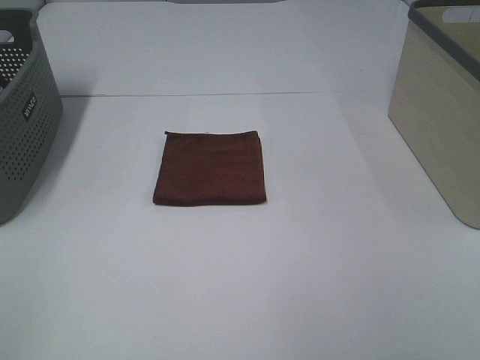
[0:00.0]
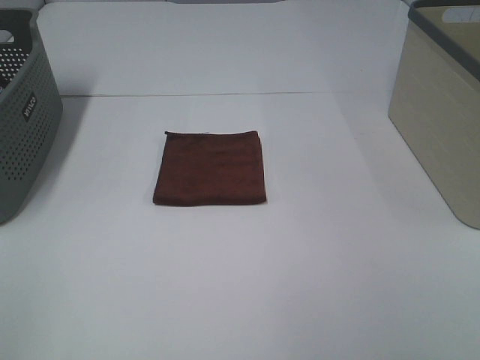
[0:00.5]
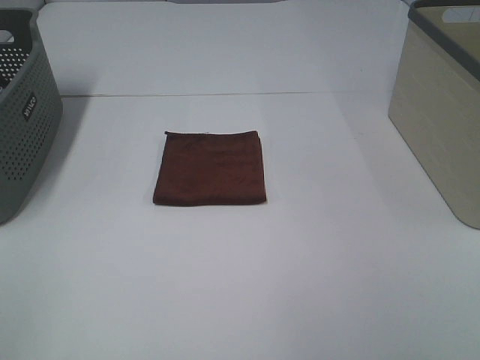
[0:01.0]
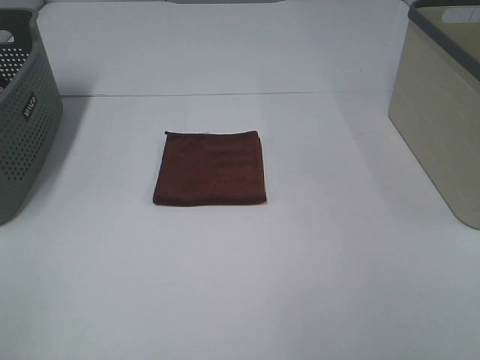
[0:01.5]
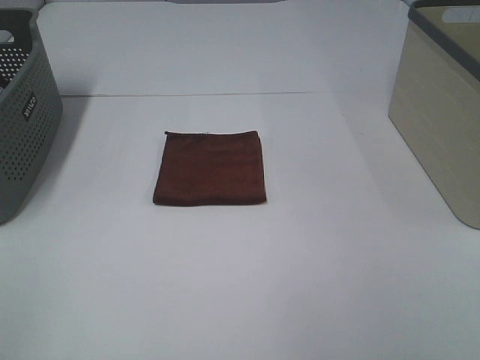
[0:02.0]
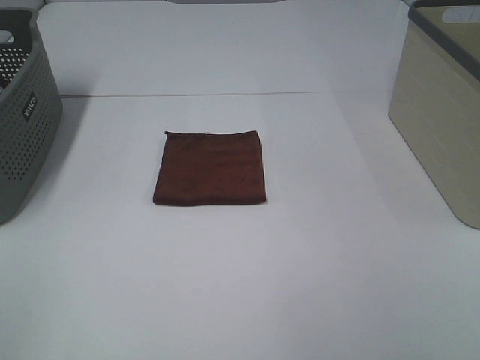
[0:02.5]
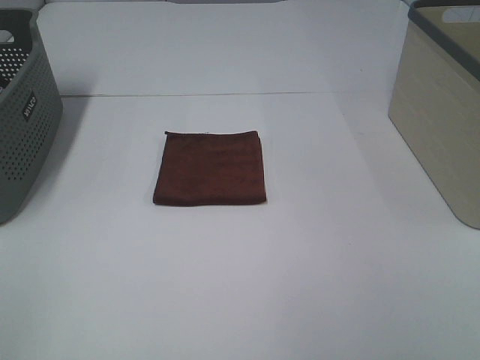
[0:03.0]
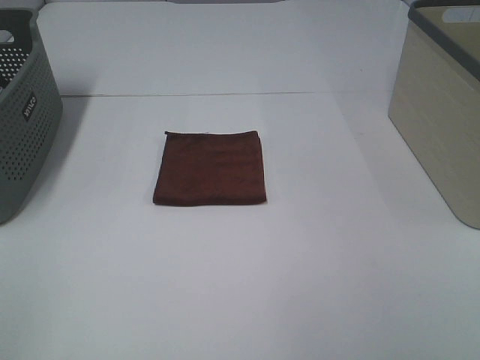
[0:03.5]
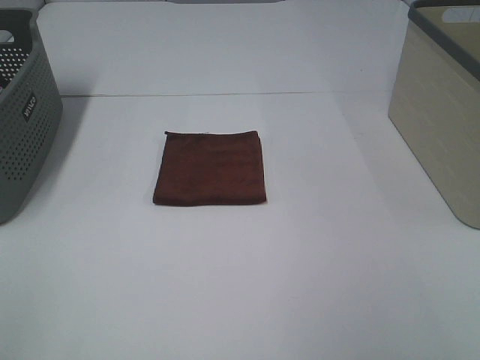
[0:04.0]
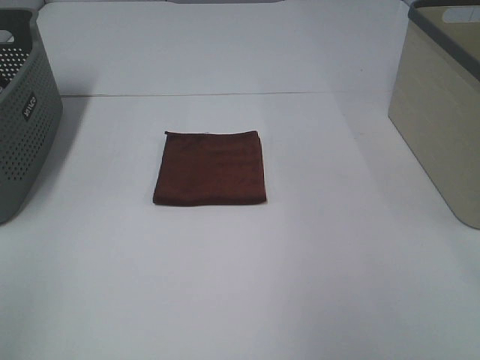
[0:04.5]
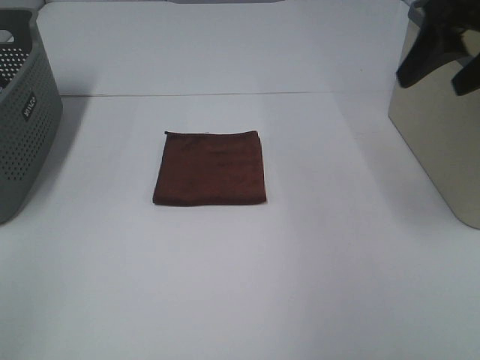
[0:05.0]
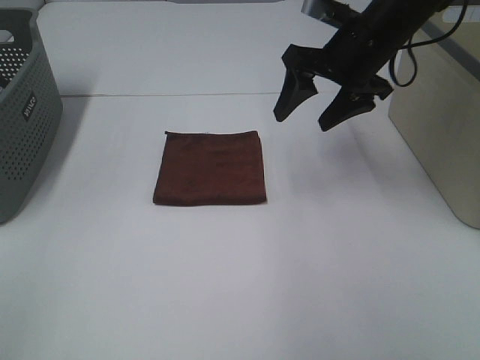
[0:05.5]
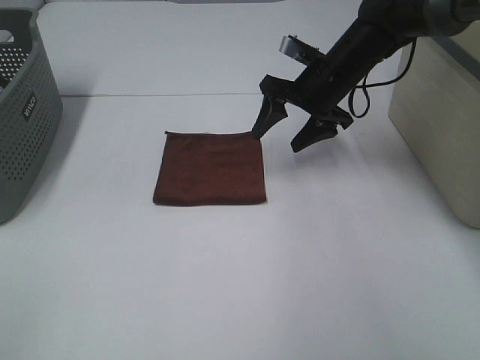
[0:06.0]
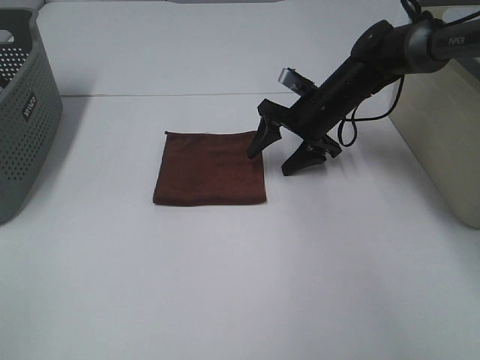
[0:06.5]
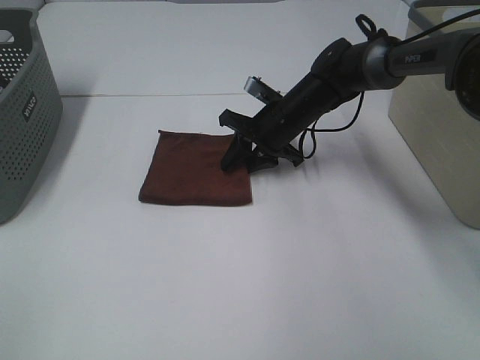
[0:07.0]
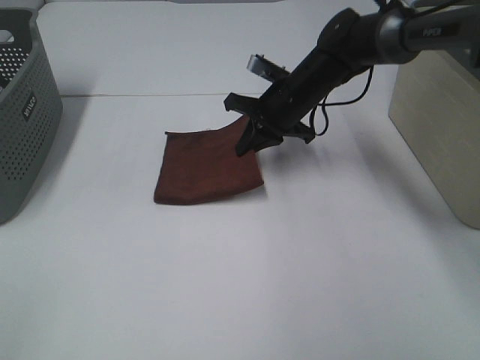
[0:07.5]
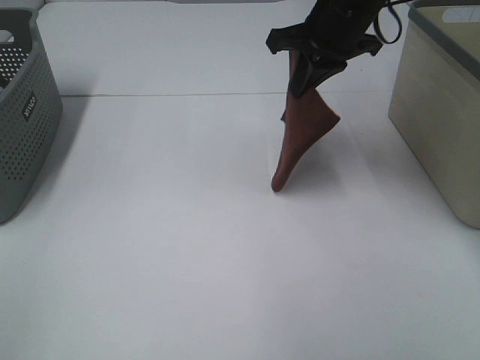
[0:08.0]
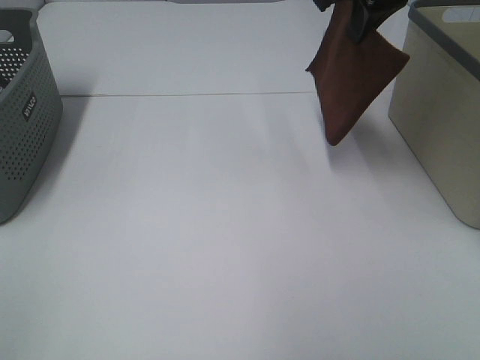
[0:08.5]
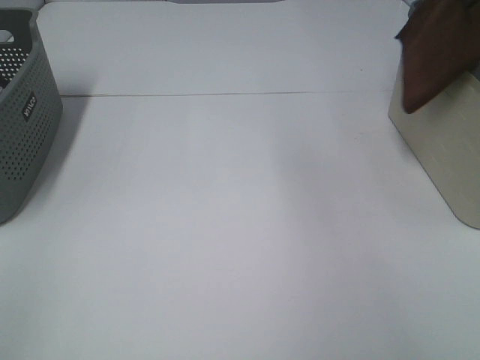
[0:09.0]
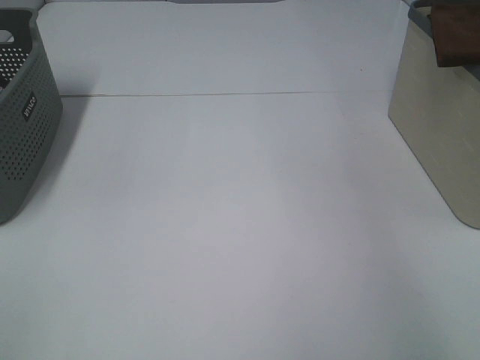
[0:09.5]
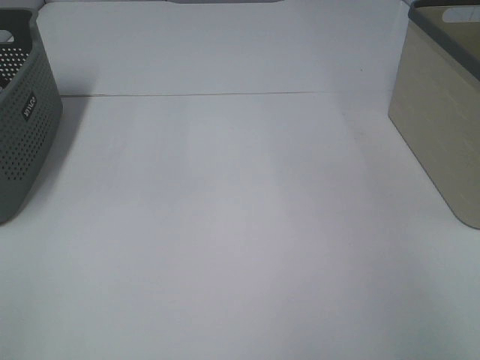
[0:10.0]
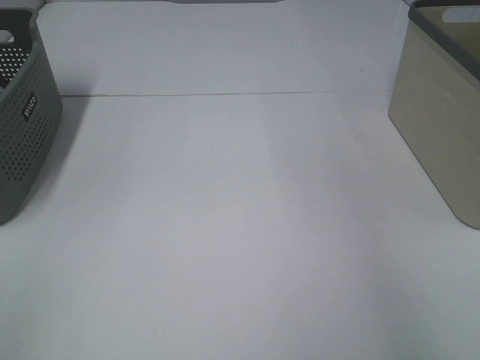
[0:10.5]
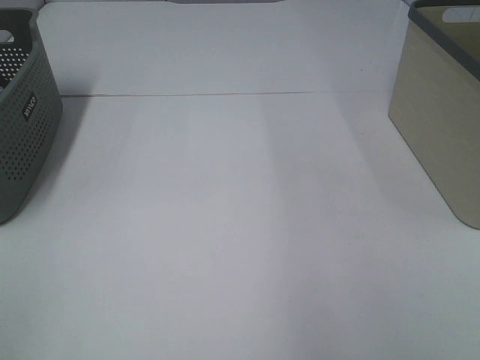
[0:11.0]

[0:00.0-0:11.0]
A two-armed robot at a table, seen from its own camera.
Step, 0:00.0 to 0:07.0: Right hand: grab the folded brown towel.
Step, 0:07.5 to 0:10.0: Right hand: place the brown towel in right basket.
0:00.0 to 0:03.5: The two grippers keep their place.
0:03.5 to 0:05.5: The right gripper heads forward, covering roughly 40 cm.
0:05.5 to 0:07.5: The right gripper moves downward and to the left, approximately 10 cm, and closes up.
0:07.5 to 0:09.0: The right gripper is displaced upward and to the right by approximately 30 cm.
0:09.0 to 0:11.0: The right gripper moves upward and backward, about 15 cm, and opens its fingers.

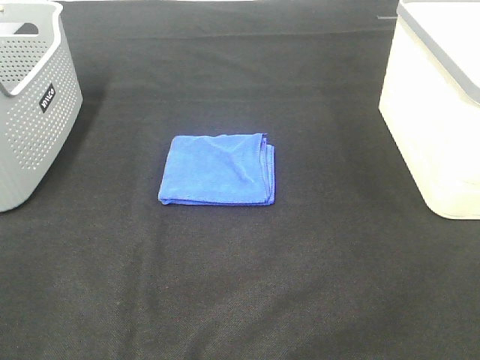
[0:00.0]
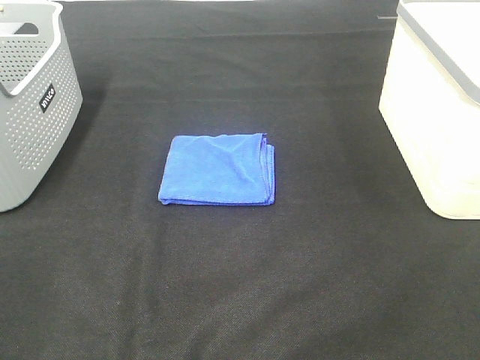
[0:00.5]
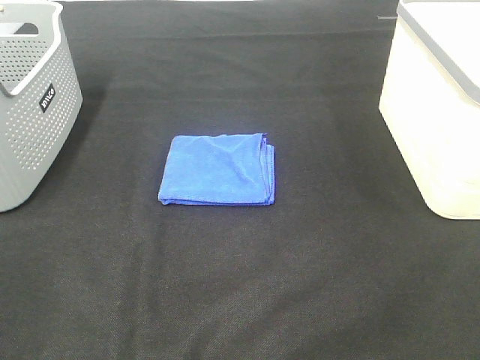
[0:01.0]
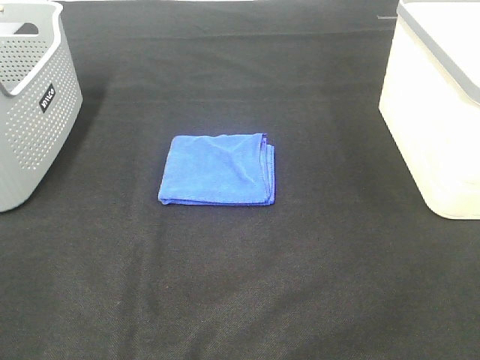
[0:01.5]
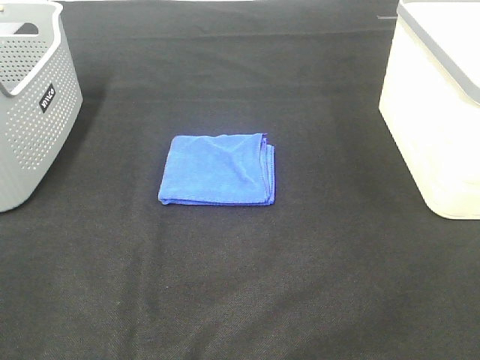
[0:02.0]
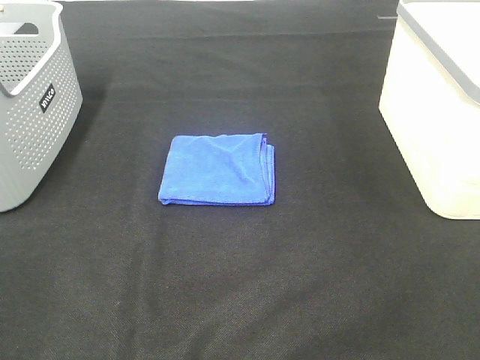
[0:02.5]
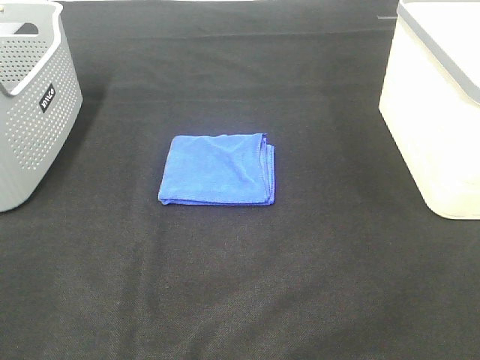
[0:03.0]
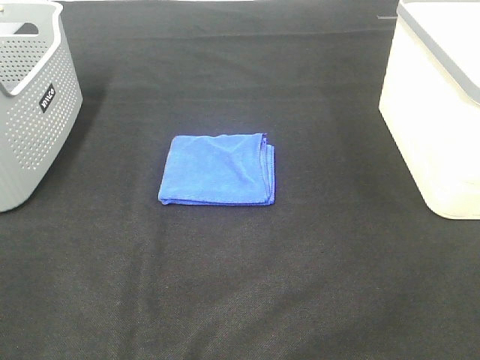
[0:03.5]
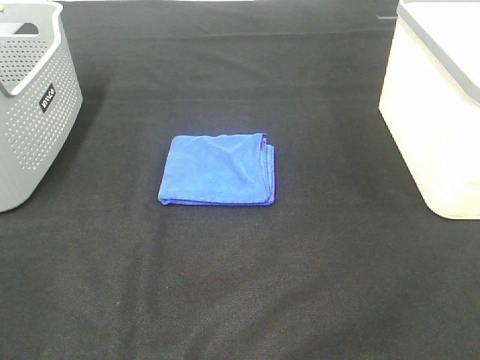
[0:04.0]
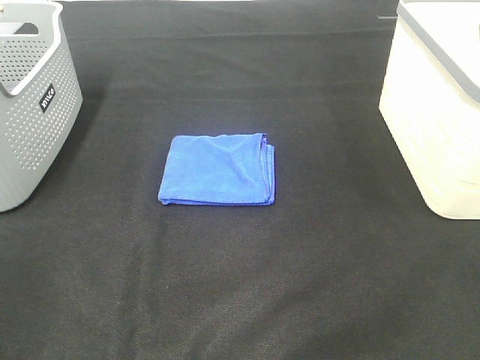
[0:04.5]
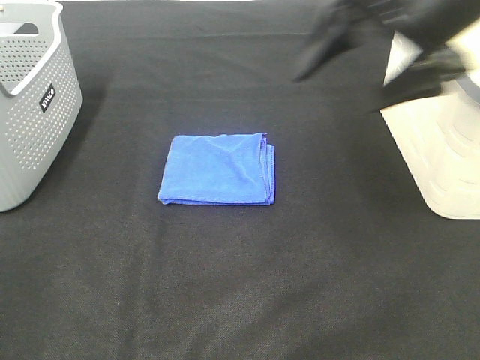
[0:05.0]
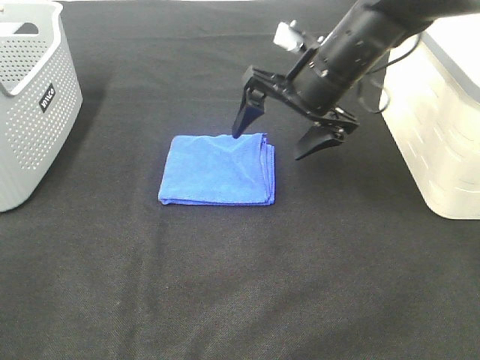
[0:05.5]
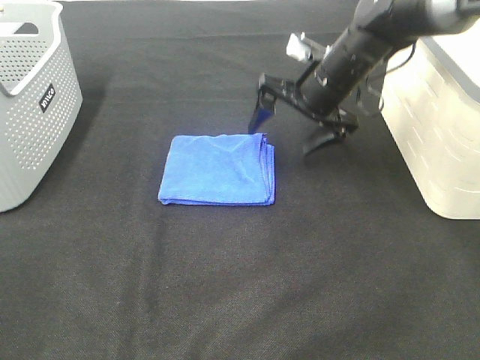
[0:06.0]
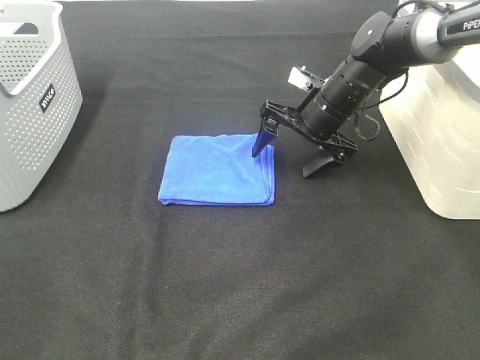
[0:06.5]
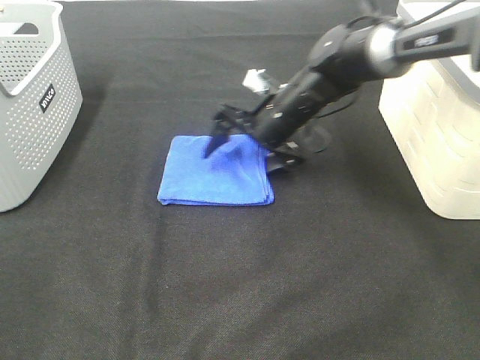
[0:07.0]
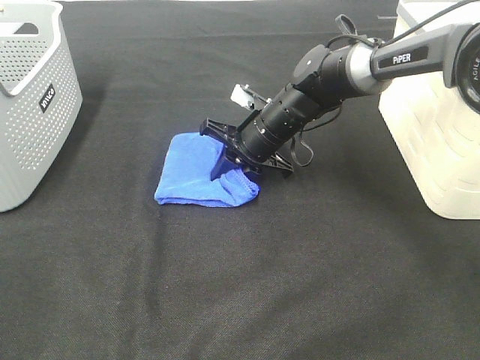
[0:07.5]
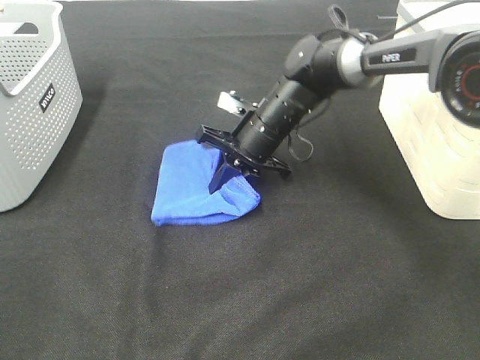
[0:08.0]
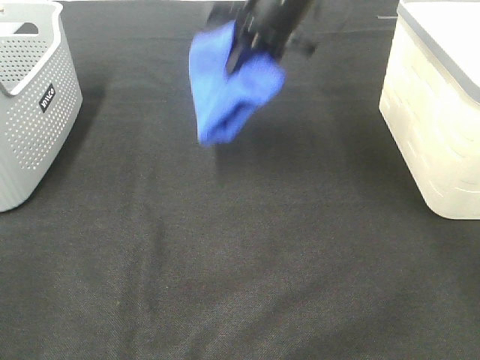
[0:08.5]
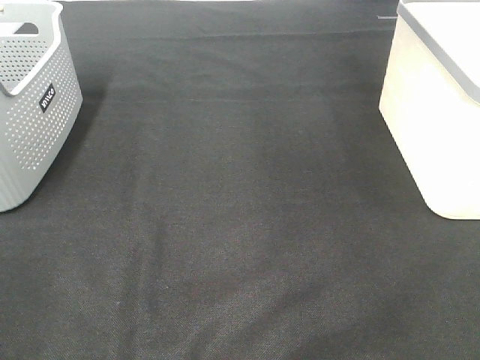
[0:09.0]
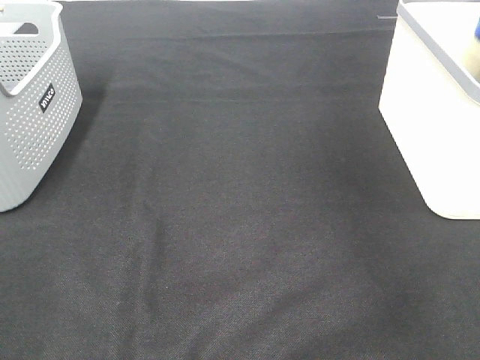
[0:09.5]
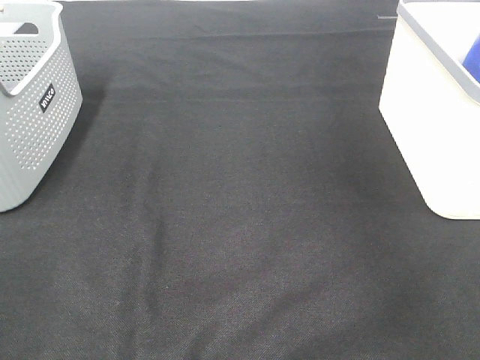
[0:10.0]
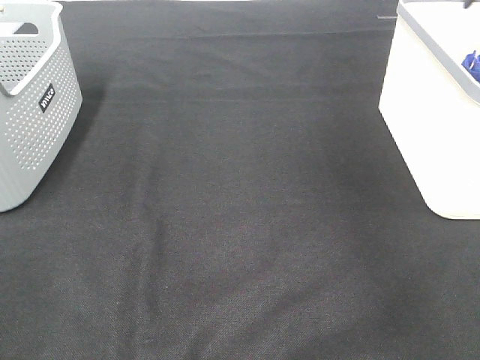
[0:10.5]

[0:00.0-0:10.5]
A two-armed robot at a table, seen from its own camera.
Step, 0:00.0 to 0:07.5: Right hand: grab the folded blue towel.
Step, 0:08.0 to 0:10.0: Right hand: place the blue towel in right basket.
0:00.0 to 0:02.0: The two grippers keep their place.
0:04.0 to 0:06.5: The right gripper goes about 50 cm forward, downward and to the left.
0:06.5 to 0:08.5: The right gripper travels upward by about 20 cm, and closes its fingers.
0:08.5 to 0:10.5: The right gripper goes roughly 30 cm to the right, and opens its fingers.

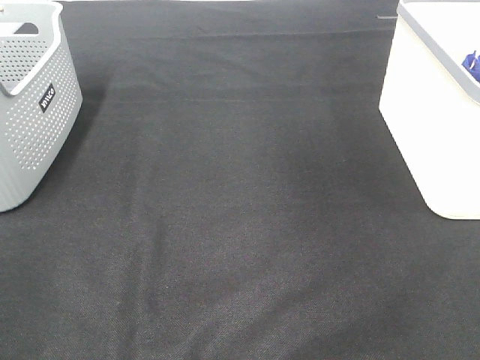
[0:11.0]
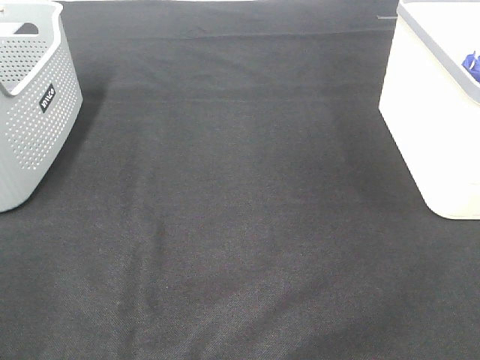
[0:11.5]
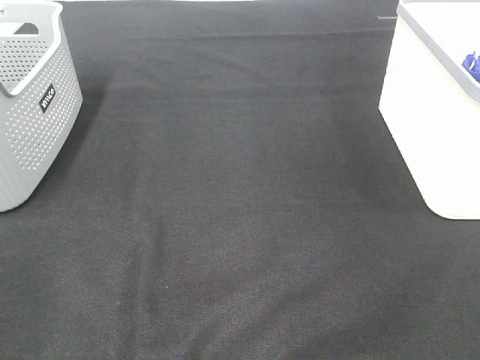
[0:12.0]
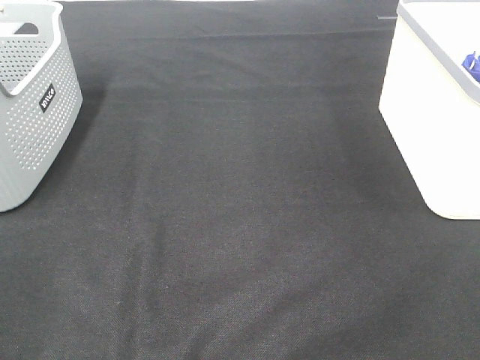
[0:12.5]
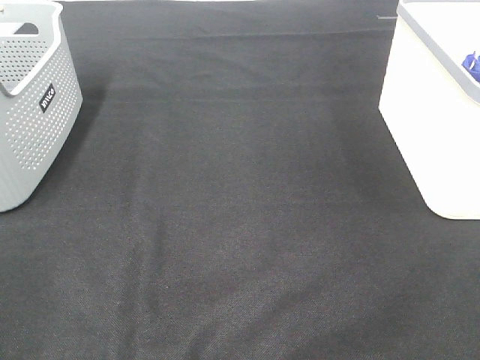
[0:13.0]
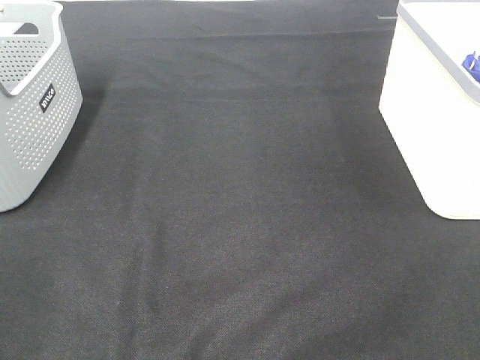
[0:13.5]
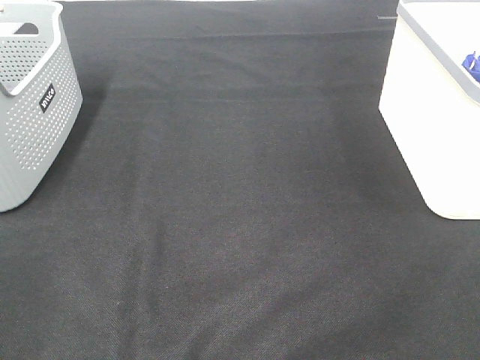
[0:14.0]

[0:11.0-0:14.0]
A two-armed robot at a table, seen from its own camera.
0:12.5 to 0:14.0: Both grippers stay put.

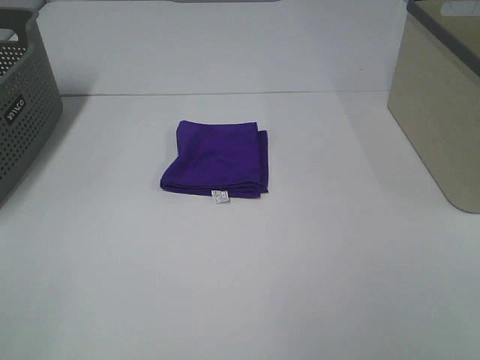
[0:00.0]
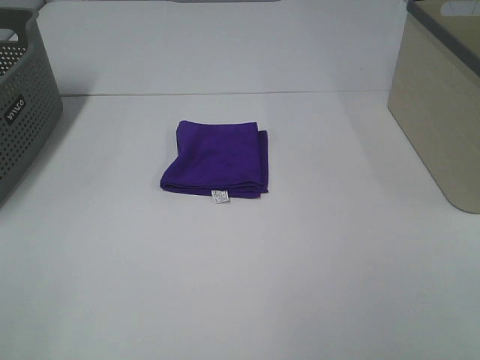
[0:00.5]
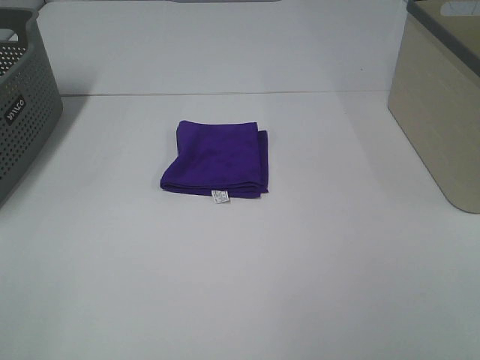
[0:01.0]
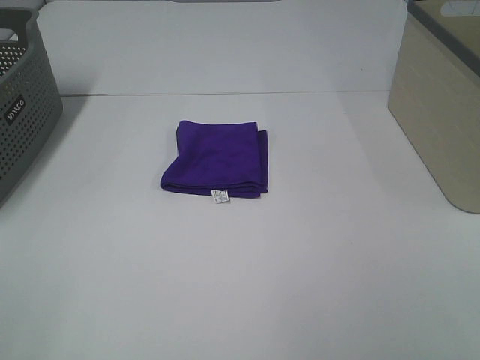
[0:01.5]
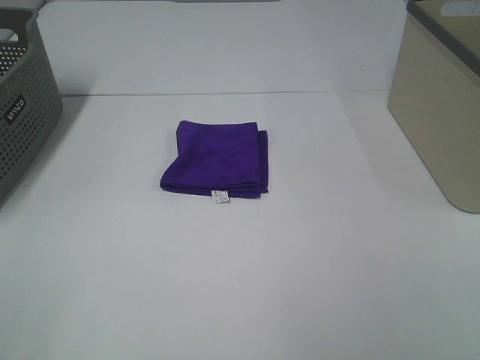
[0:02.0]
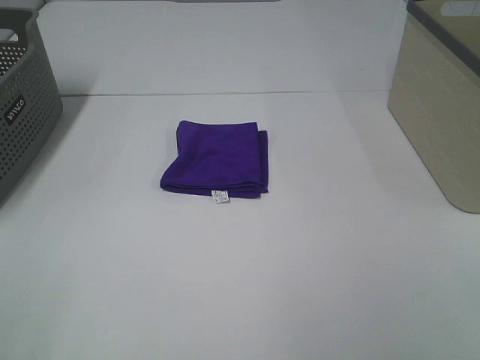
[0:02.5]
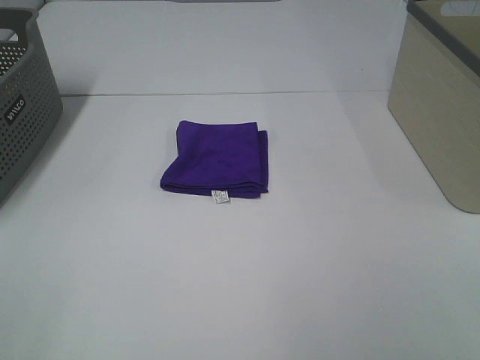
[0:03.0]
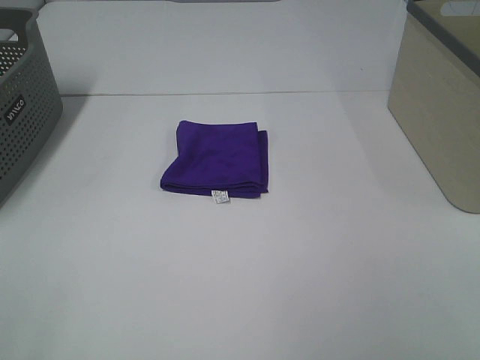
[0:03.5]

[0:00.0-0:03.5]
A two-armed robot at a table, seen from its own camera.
0:00.0 to 0:02.0: Both grippers stay about where they are.
